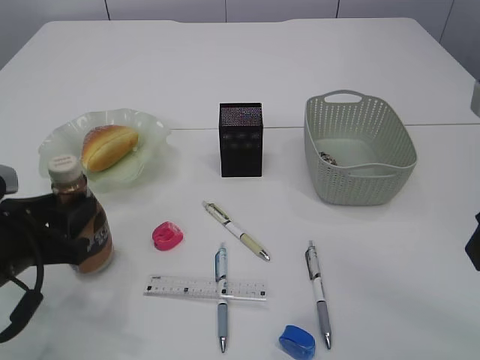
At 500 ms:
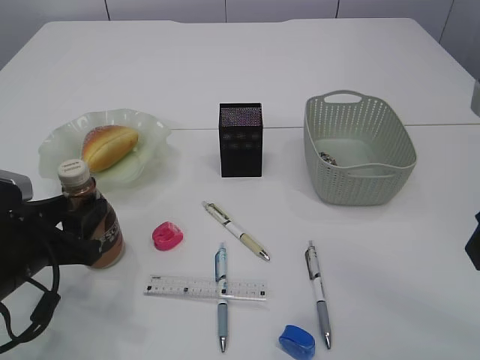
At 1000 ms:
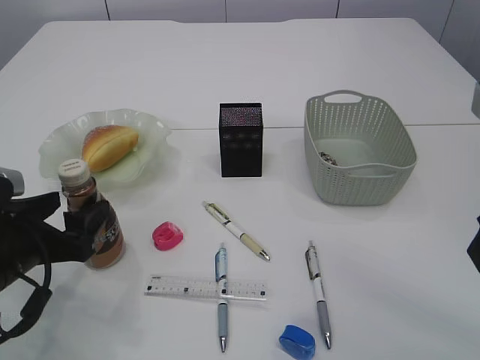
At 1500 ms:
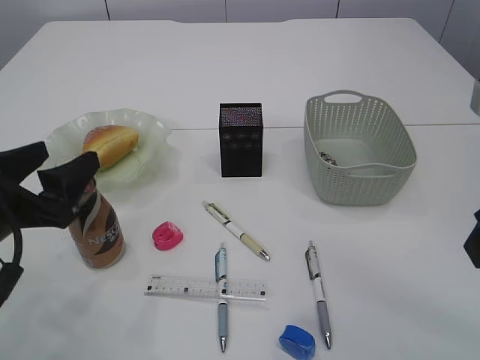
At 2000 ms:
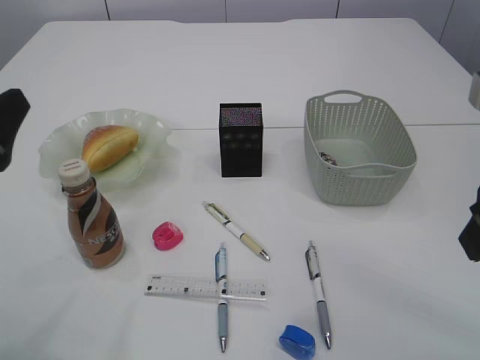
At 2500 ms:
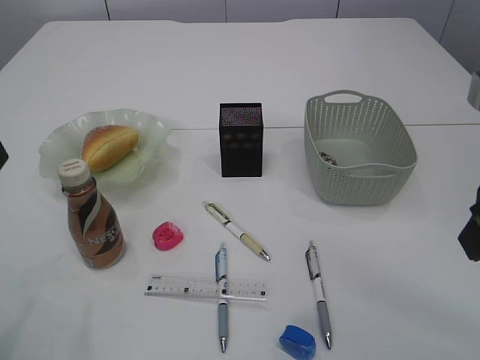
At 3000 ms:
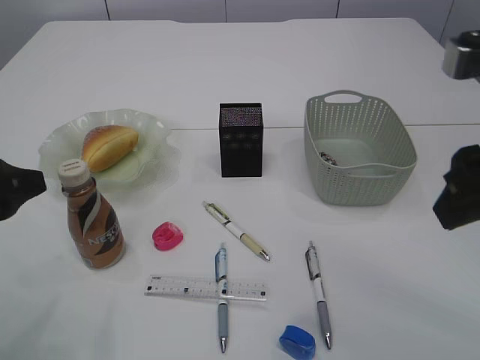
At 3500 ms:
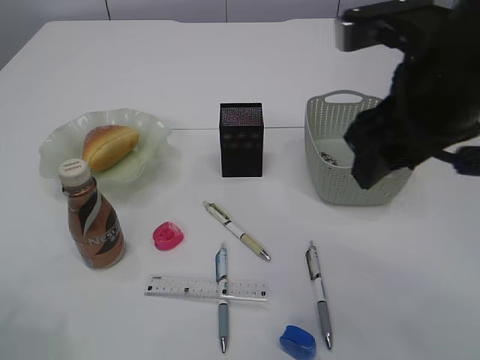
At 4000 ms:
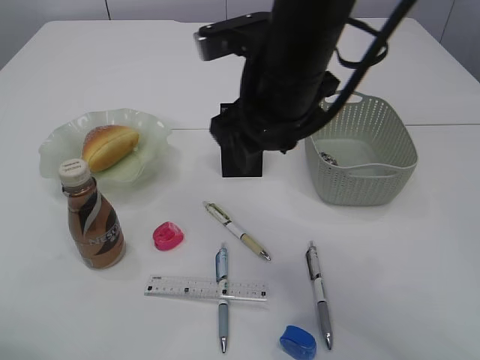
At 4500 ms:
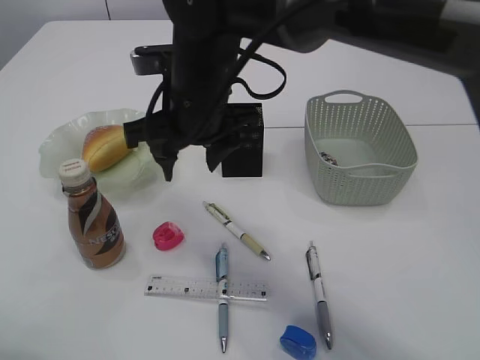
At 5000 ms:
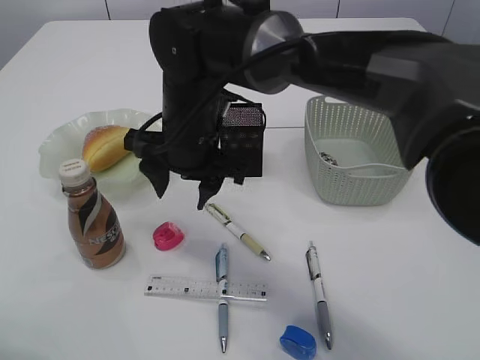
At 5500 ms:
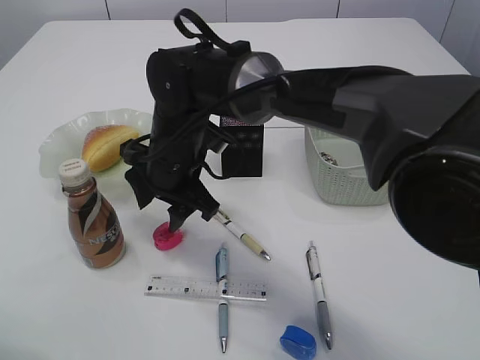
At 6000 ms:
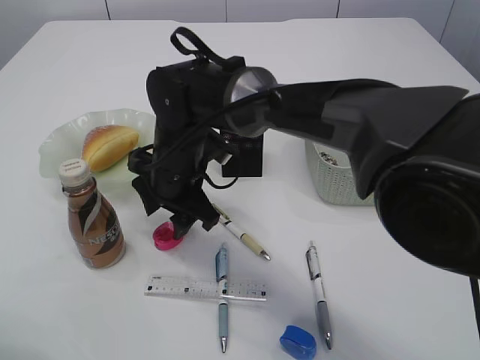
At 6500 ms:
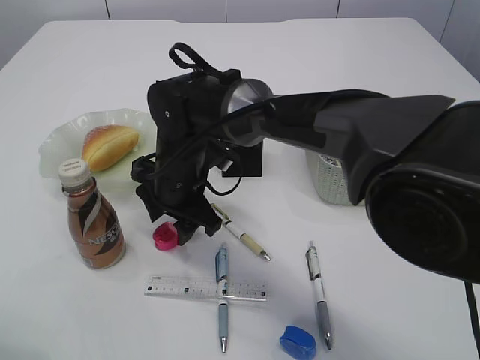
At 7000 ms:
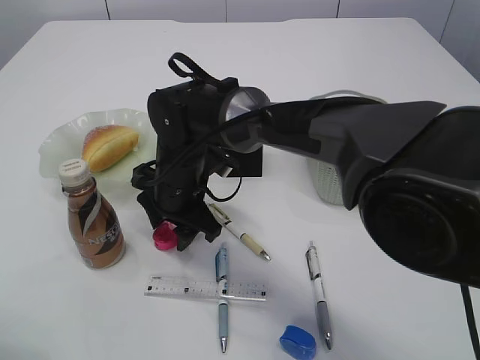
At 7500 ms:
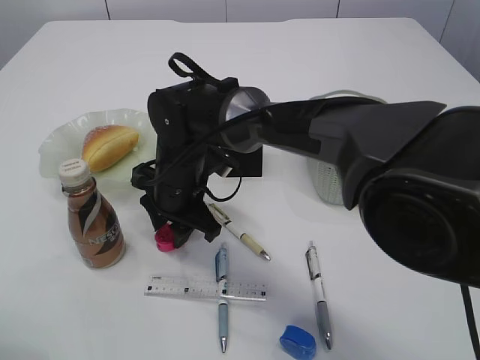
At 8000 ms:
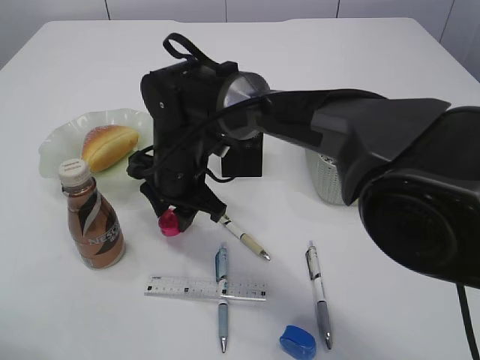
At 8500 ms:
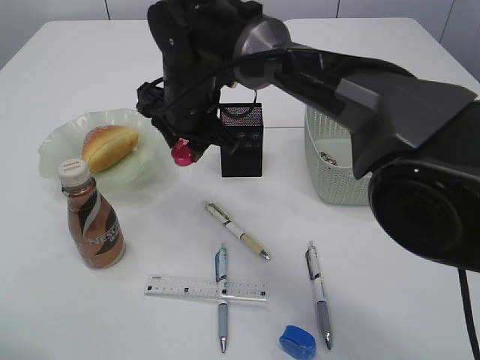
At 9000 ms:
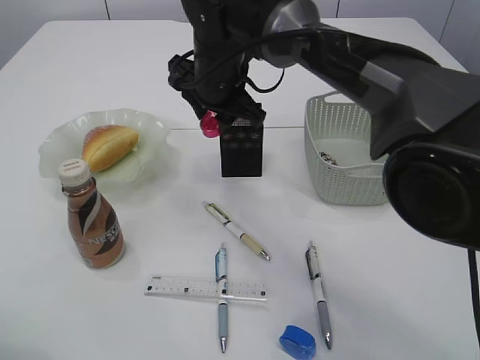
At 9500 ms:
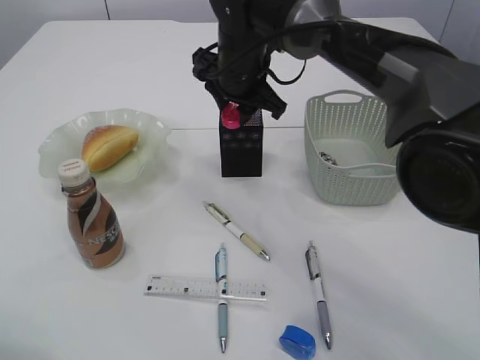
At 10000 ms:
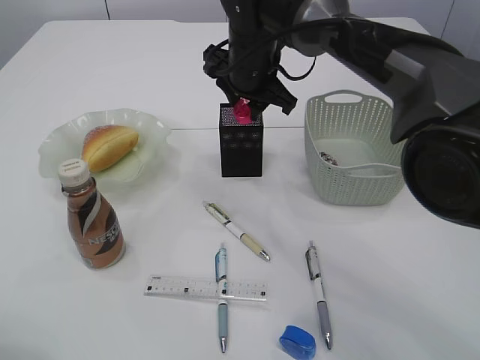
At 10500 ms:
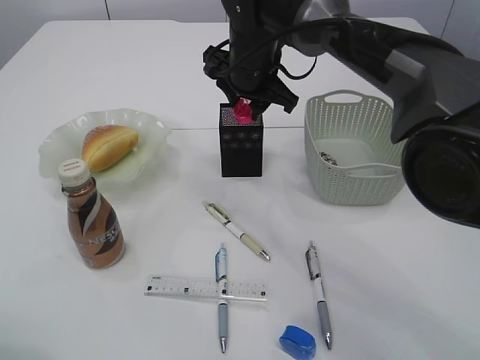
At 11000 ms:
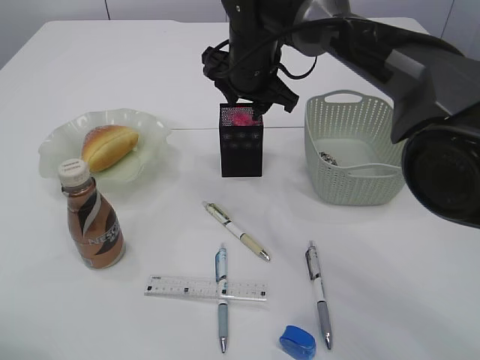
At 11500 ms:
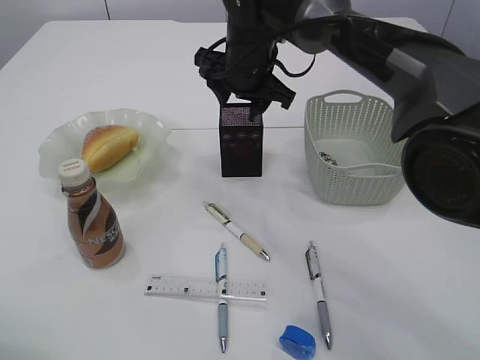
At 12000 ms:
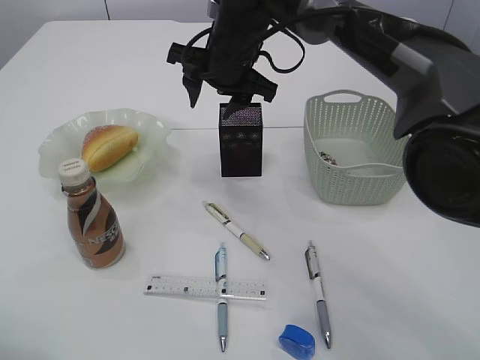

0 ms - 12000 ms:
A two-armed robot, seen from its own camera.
Step, 0 ms - 2000 ms: Place the bottle.
Step, 2500 ms - 8000 ms: Pick up the red pencil sharpener.
Step, 8500 ms - 11000 ms: Place the red pencil sharpener into the pen holder.
0 ms - 2000 ms: The left gripper shifts about 10 cm upward, and opens its fingers.
2000 ms - 4000 ms: The right gripper goes roughly 25 cm to the left and forward. The left gripper changes place by about 5 cm.
4000 ms - 6000 ms: The right gripper is displaced downward and to the left by about 15 cm.
6000 ms - 8000 ms: There are only small adjustments of the grippers.
8000 ms - 10000 ms: The right gripper shifts approximately 15 cm to the right, upward and forward.

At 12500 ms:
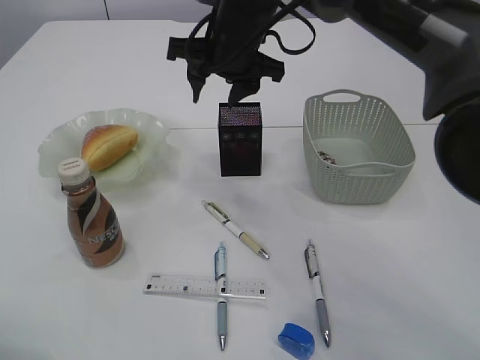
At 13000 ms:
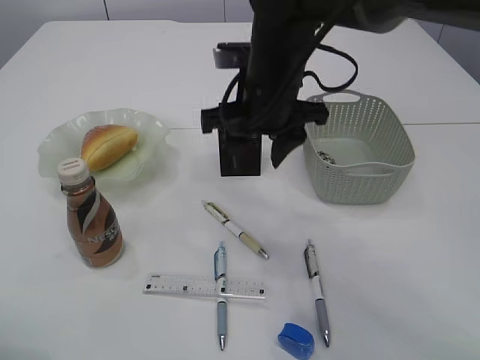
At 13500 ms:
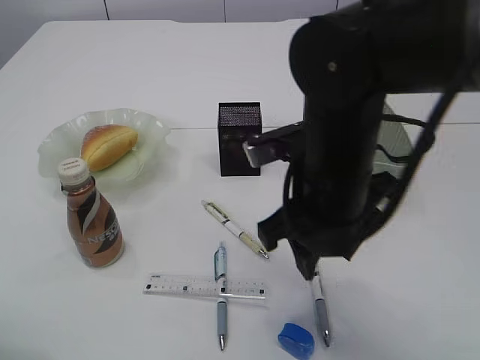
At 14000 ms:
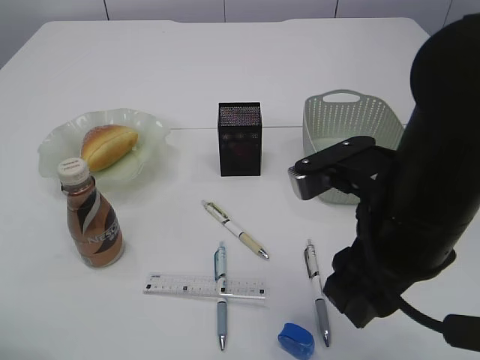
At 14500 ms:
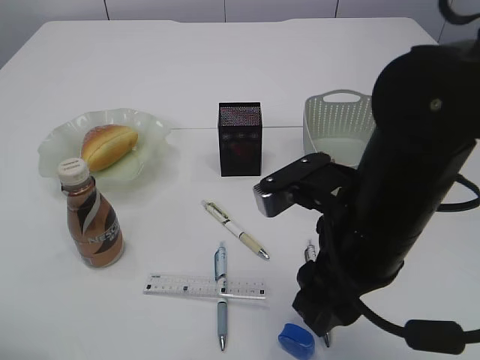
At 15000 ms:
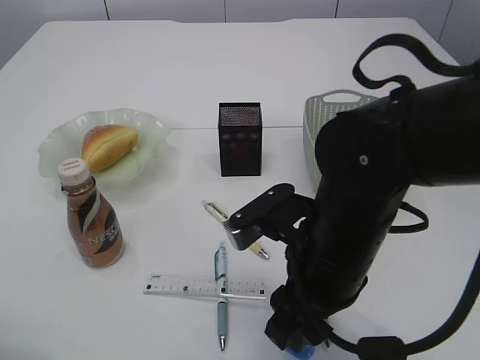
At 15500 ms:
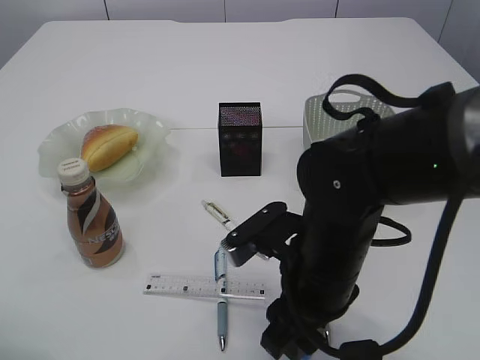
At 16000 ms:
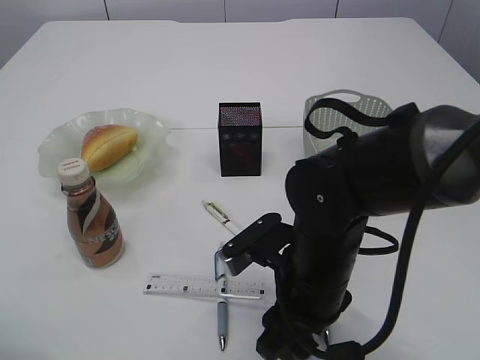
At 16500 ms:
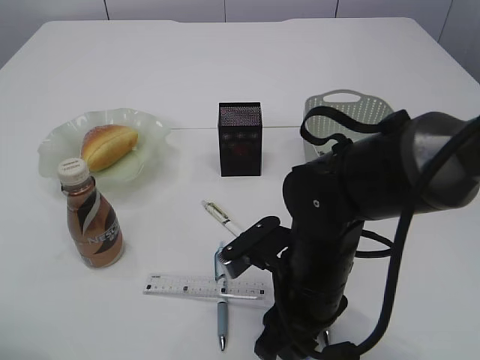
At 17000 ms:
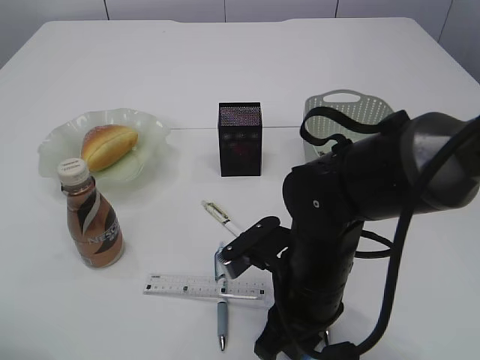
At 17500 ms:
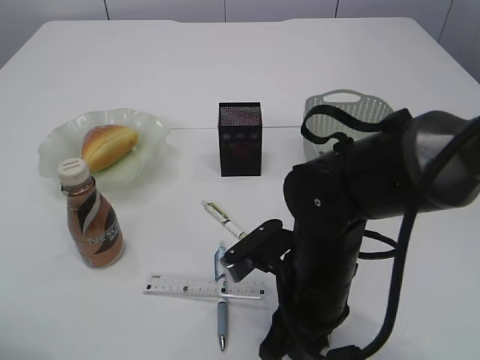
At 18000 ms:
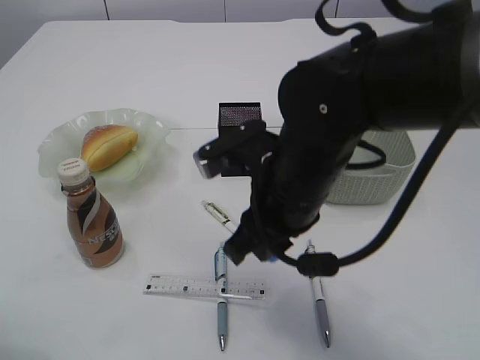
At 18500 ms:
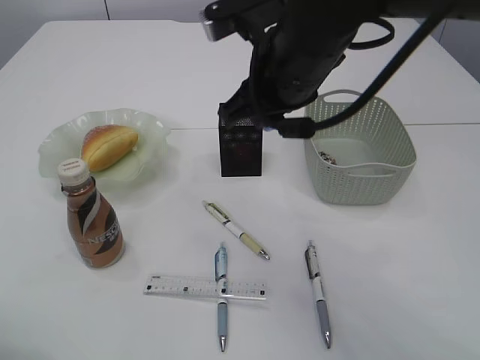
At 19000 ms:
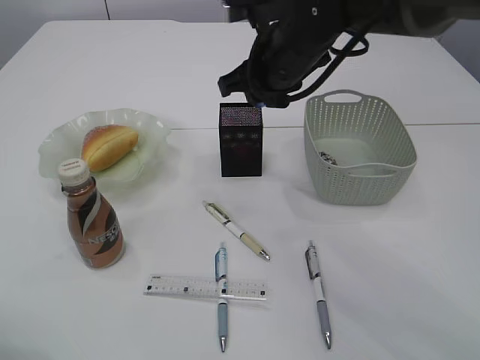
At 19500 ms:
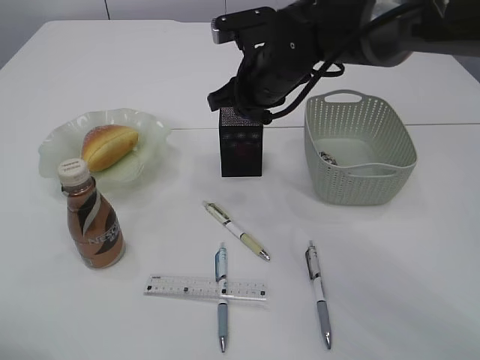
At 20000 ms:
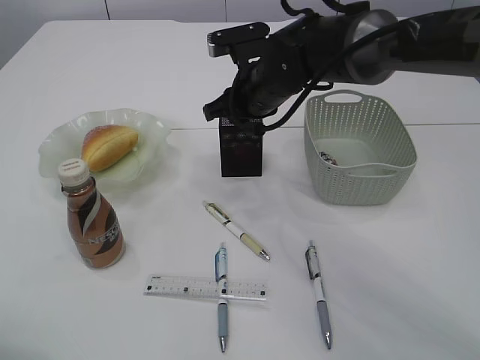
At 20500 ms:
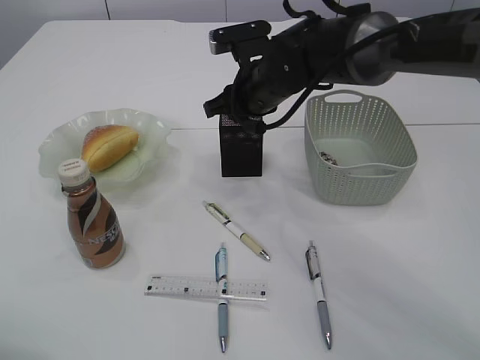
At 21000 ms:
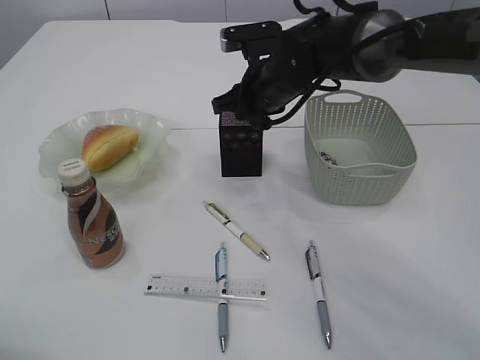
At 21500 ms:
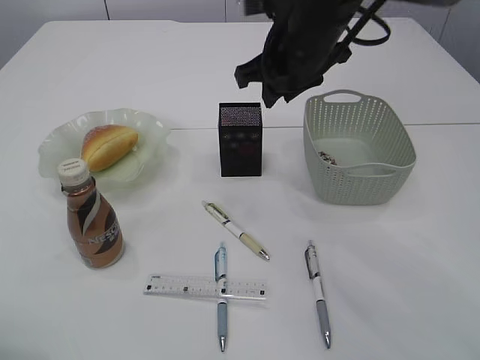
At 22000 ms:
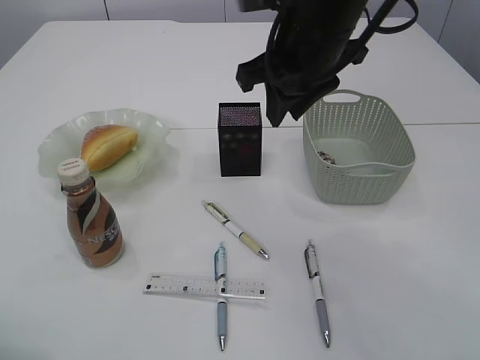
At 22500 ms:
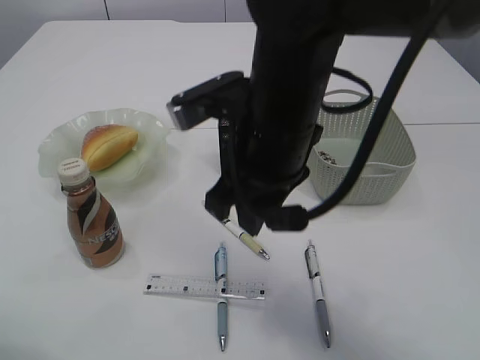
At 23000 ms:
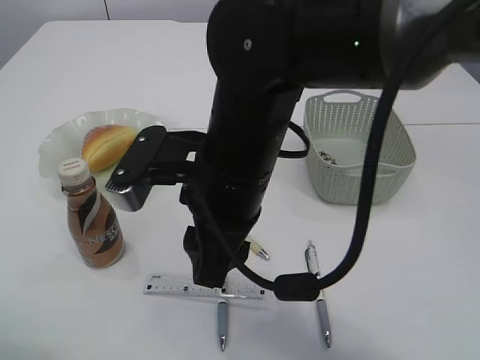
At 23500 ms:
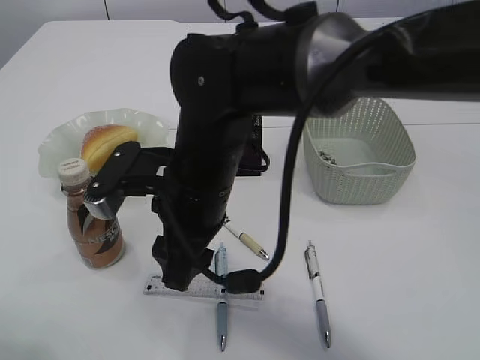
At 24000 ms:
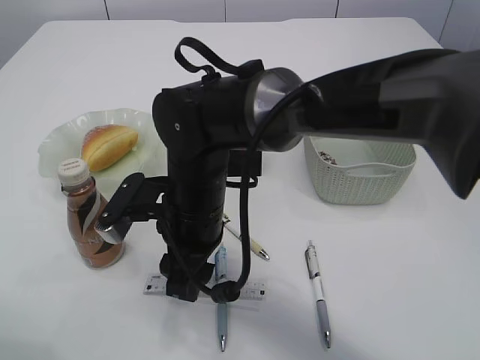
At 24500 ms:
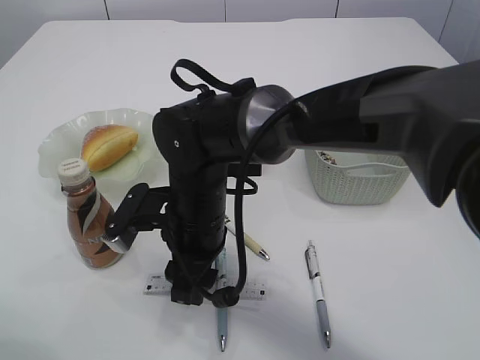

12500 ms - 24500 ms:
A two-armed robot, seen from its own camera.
Step, 12500 ms - 18000 ms: Pick up the blue pencil sharpener.
Step, 18500 ms - 20500 ms: Place the blue pencil sharpener into the pen holder.
12500 ms - 14500 ms: The right gripper moves backward, roughly 25 cm.
14500 ms - 16500 ms: The right gripper heads downward, covering approximately 10 cm.
16500 ms - 18500 ms: The right gripper is displaced upward and forward by about 20 cm.
18500 ms - 20500 ms: The right gripper shifts approximately 15 cm forward and downward.
20500 ms - 22500 ms: The right gripper heads backward, covering approximately 15 cm.
22500 ms - 24500 ms: The right gripper shifts some 15 cm downward and to the left.

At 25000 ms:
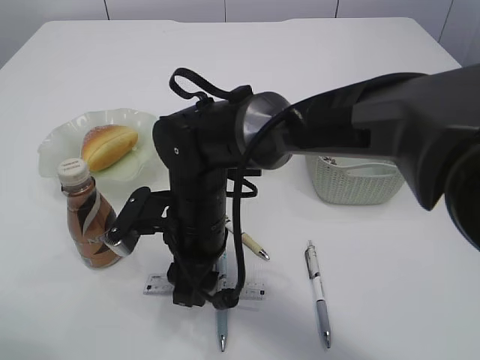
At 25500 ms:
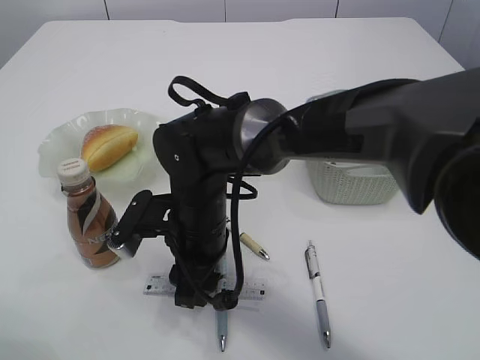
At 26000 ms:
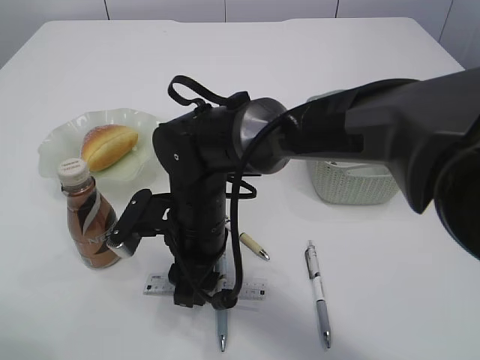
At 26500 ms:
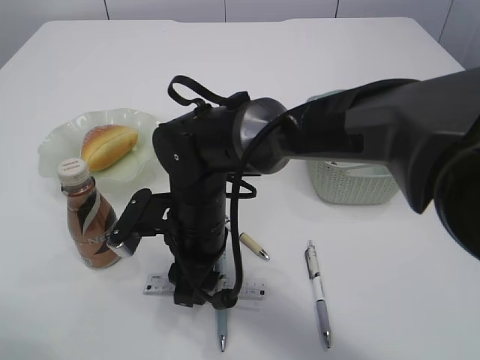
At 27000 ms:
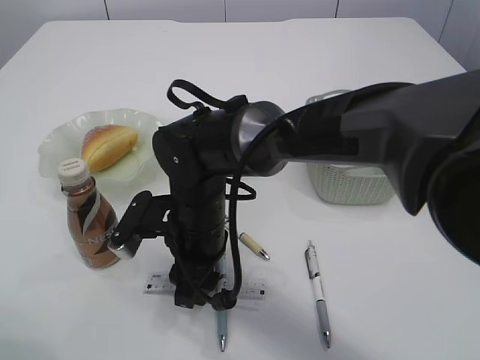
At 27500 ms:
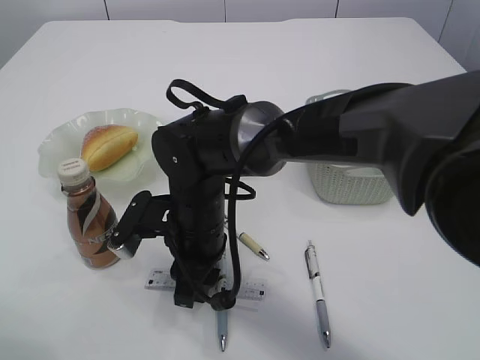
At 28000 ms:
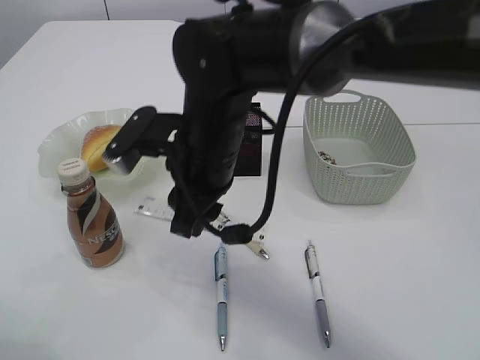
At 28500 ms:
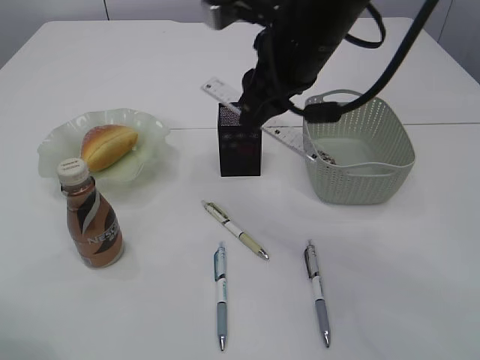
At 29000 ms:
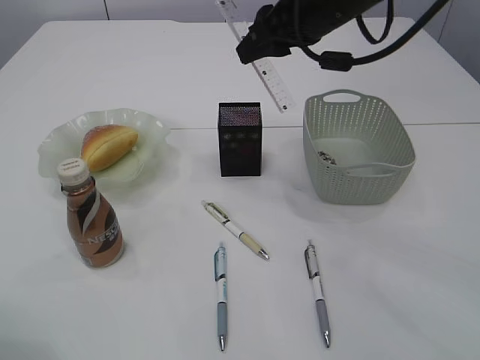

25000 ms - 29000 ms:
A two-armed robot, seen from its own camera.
Step, 25000 ms - 28000 ms: pick up the ruler.
25000 ms - 27000 ms: Neither gripper changes place.
27000 ms - 29000 ms: The right gripper shifts some 25 cm upward, to the right and forward.
